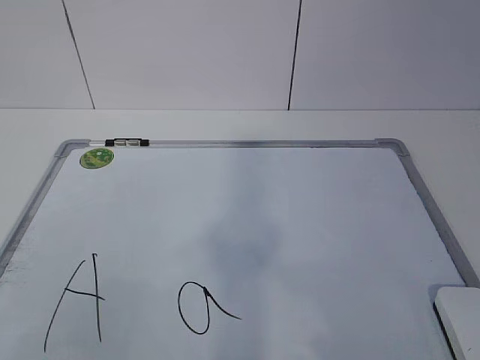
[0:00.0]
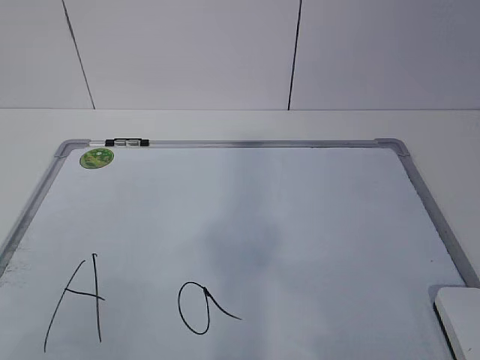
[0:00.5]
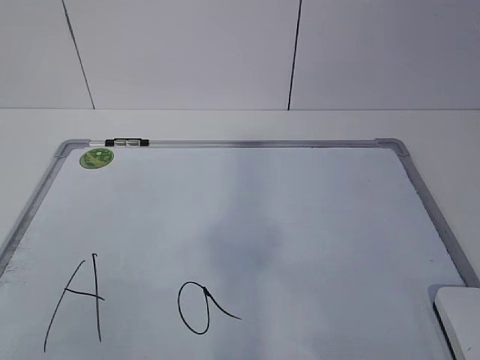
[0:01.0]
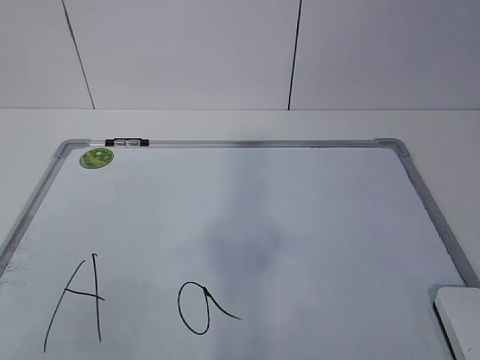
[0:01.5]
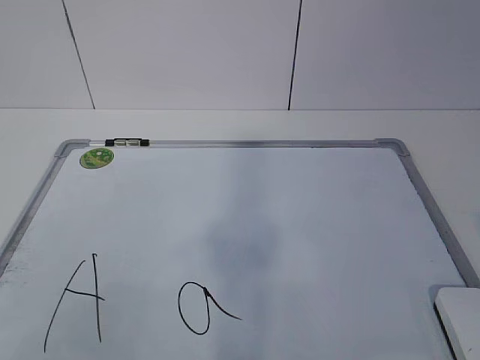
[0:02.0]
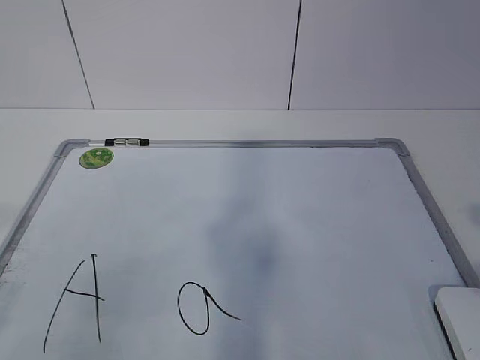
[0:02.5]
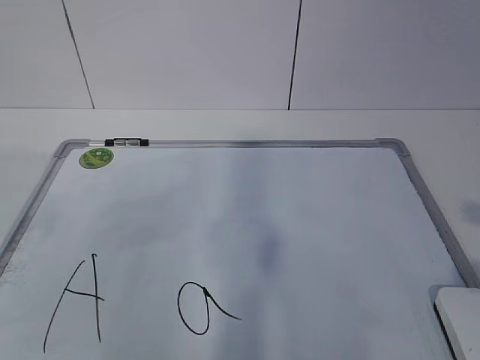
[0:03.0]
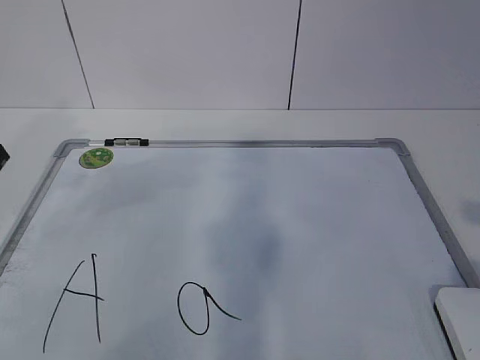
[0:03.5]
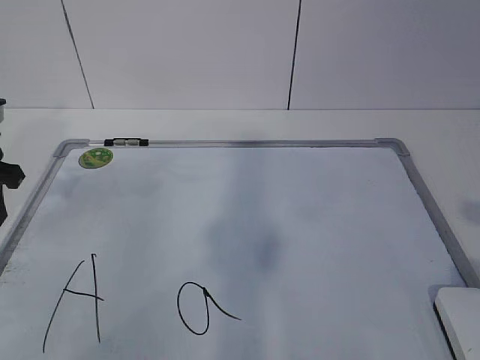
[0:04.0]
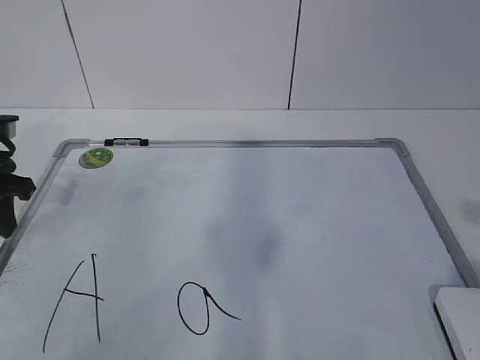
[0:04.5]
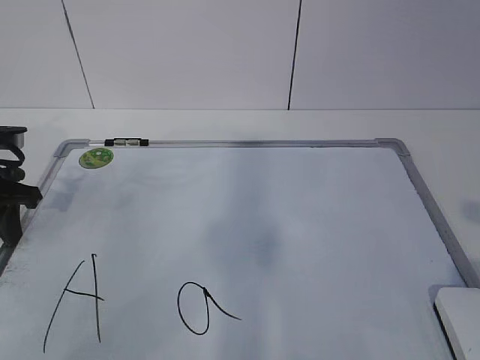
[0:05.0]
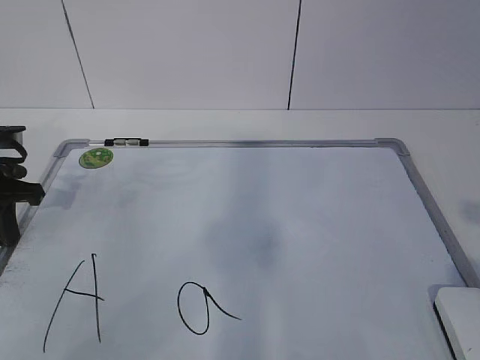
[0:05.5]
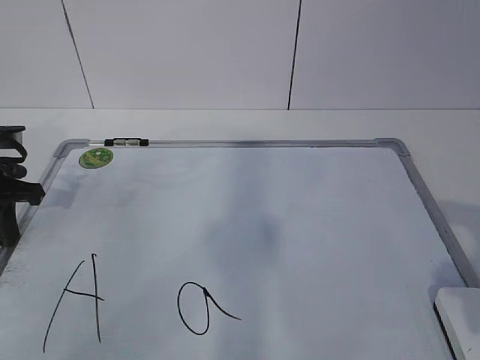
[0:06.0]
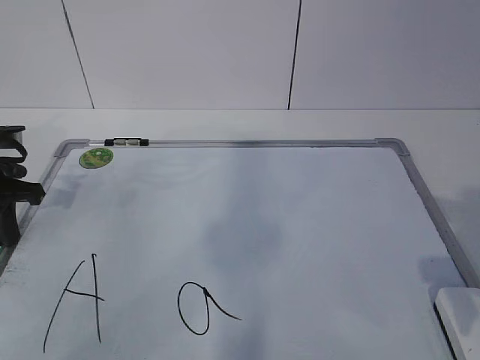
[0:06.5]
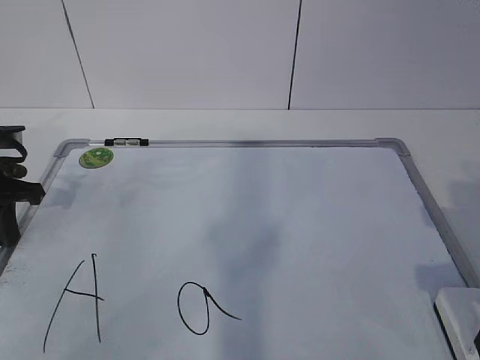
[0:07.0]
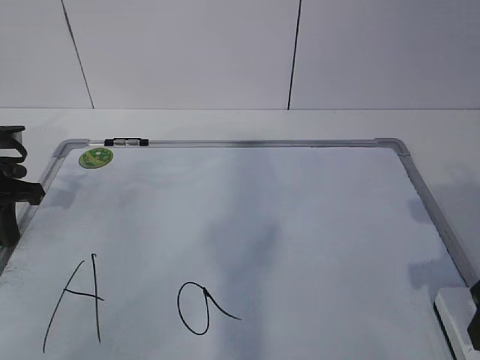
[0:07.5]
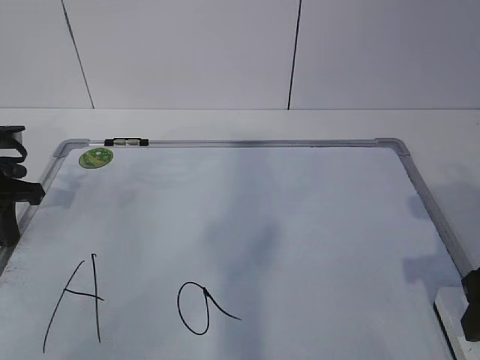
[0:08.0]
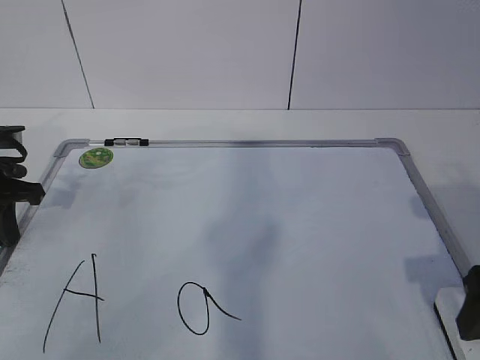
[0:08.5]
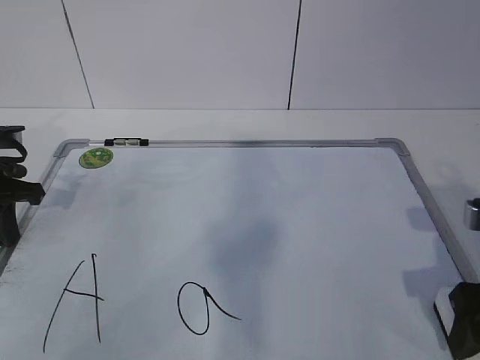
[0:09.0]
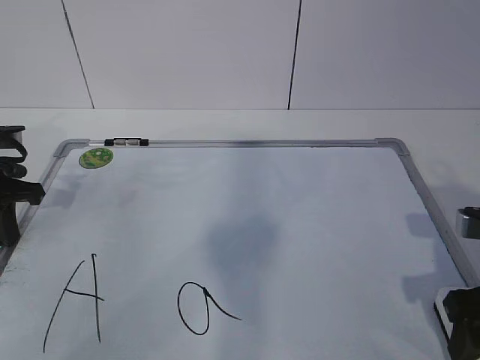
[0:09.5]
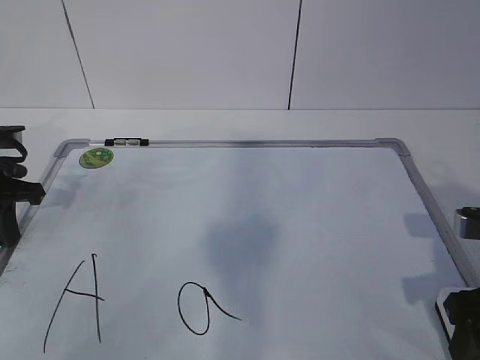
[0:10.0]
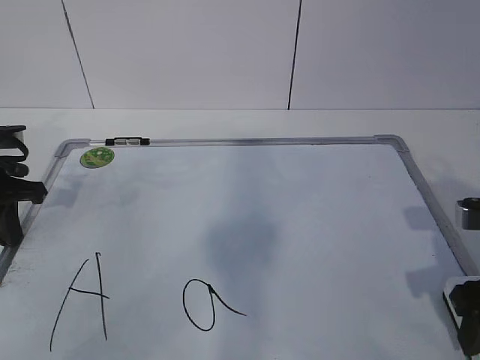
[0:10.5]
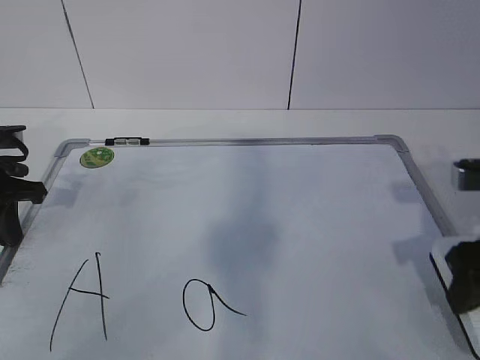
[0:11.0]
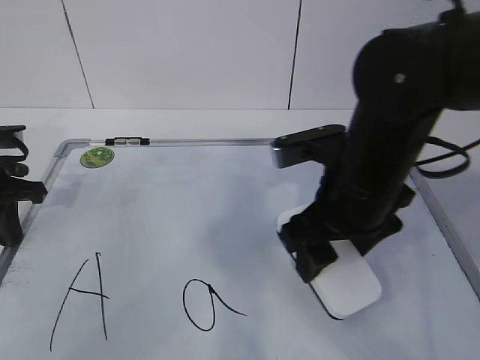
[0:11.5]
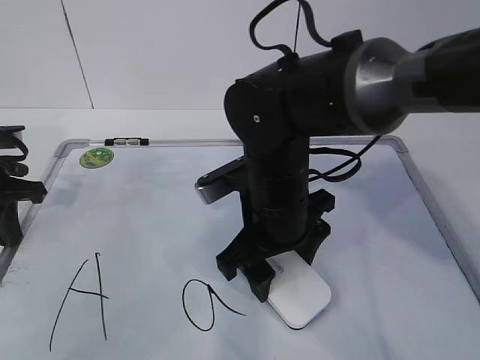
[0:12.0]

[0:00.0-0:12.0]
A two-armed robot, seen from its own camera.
Task of the whole recording: pick up the eraser on the blackboard and erase the letter "a".
Step, 4.5 to 8.5 s: Grab the eraser with your right hand.
2.0 to 4.0 s: The left gripper moves forward, some 30 cm.
4.0 to 6.0 s: The left gripper closes up.
6.0 to 8.0 s: The right gripper shifts about 10 cm forward and downward, and closes its fingers.
8.0 to 10.0 s: The right gripper opens, then closes once more.
10.0 to 12.0 s: The right gripper shifts approximately 25 cm to the left and forward.

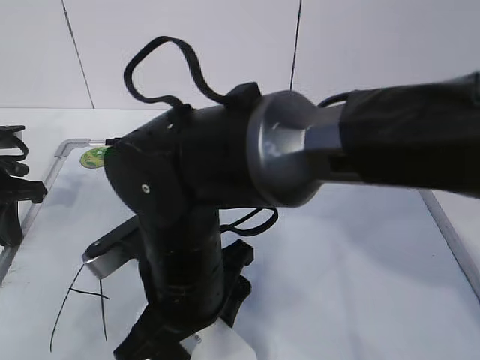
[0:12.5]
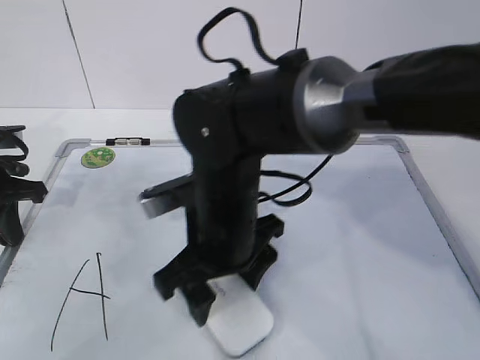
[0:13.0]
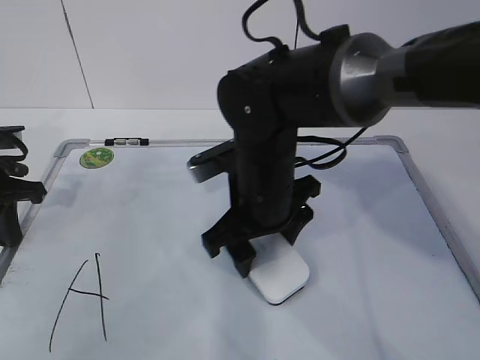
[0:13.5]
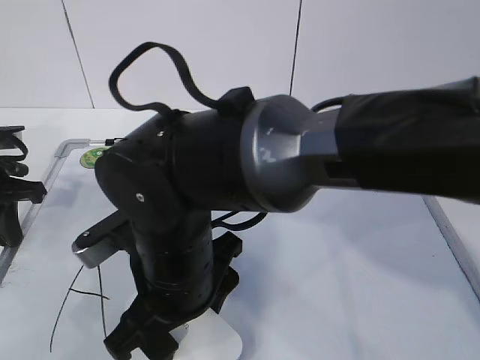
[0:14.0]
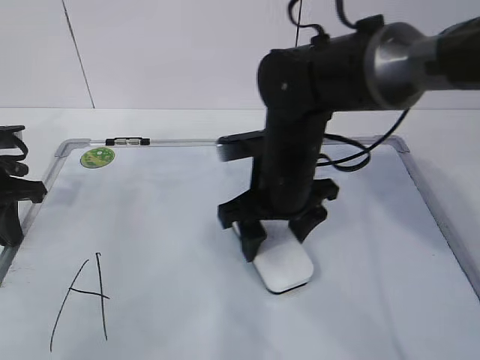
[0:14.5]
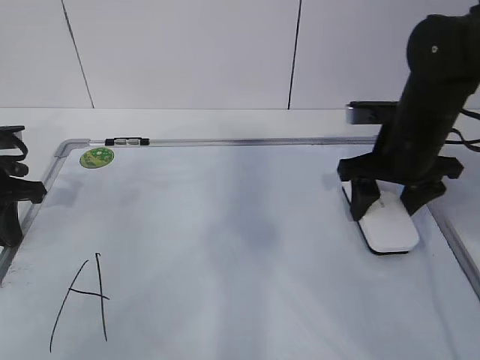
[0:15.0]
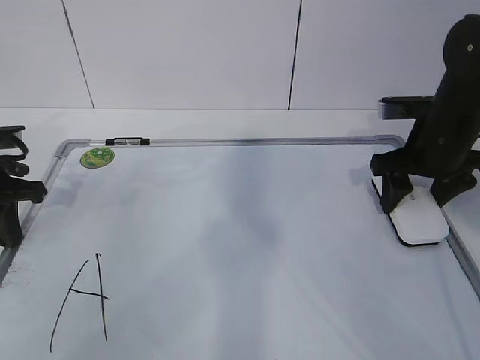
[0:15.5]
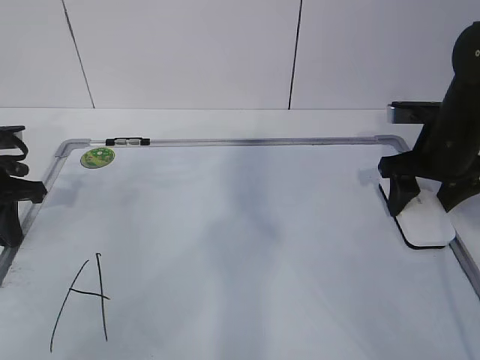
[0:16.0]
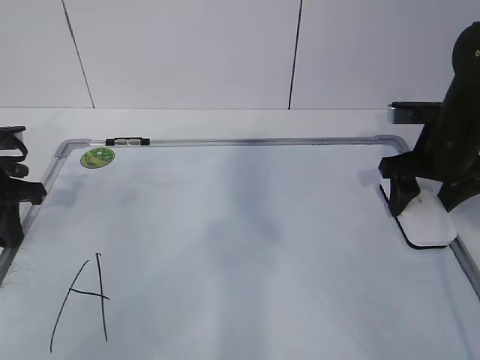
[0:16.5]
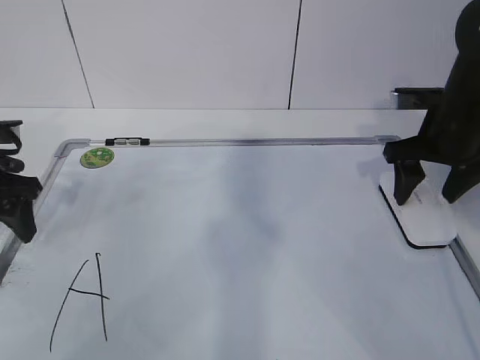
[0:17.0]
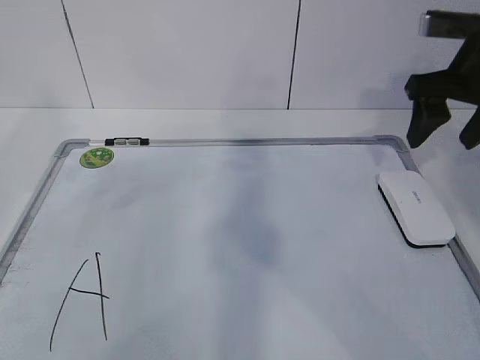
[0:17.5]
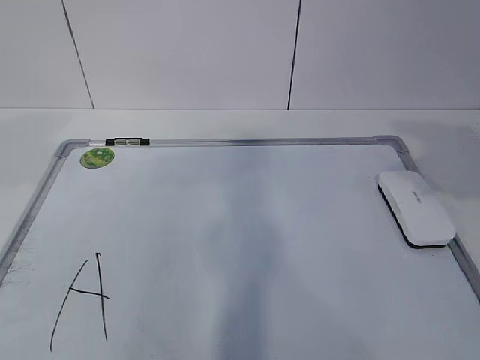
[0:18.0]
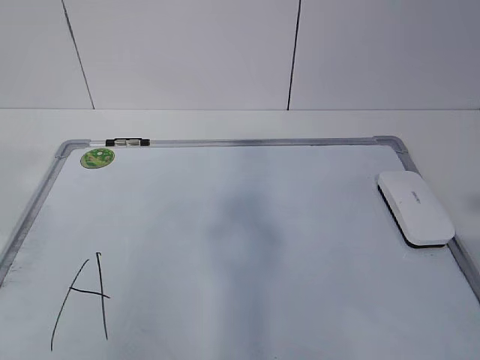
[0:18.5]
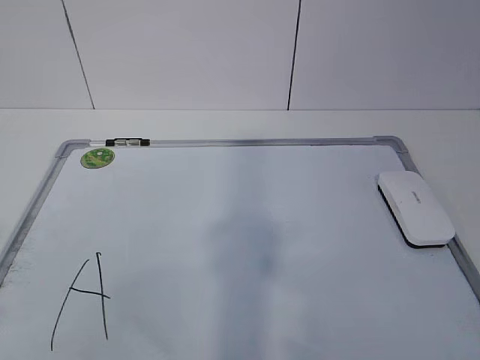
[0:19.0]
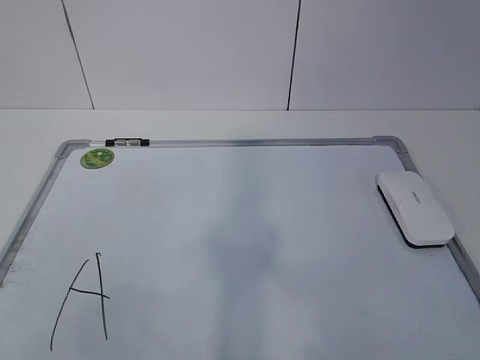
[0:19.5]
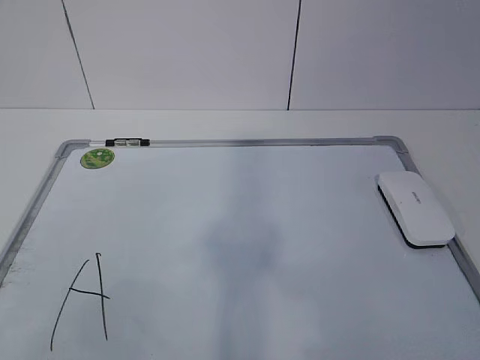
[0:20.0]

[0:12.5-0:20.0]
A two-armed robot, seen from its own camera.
Task of the whole recording: pick up the eraser on the blackboard and erase the letter "a".
12.5 to 14.5 s: The right gripper swings forward and backward, approximately 10 cm each way, with 2 reversals.
14.5 to 16.5 s: The right gripper goes some 20 cm to the right.
16.5 to 18.0 s: The right gripper is displaced backward and upward by roughly 25 cm. The left gripper is displaced upward and backward by approximately 25 cm, and opens up.

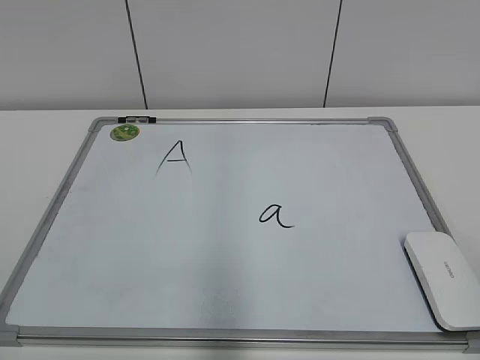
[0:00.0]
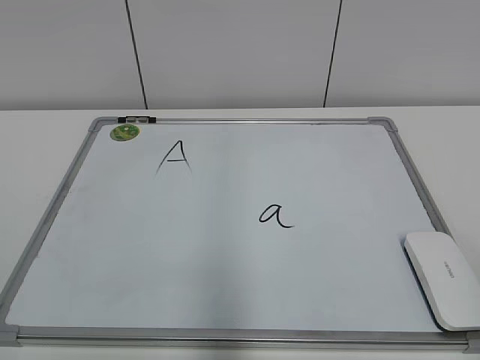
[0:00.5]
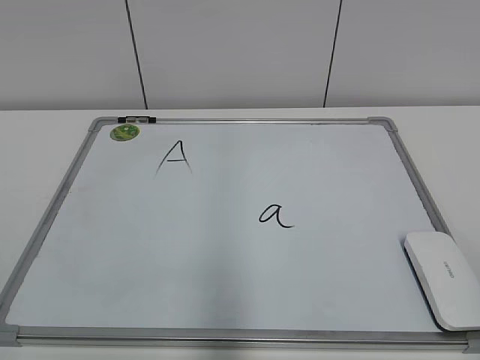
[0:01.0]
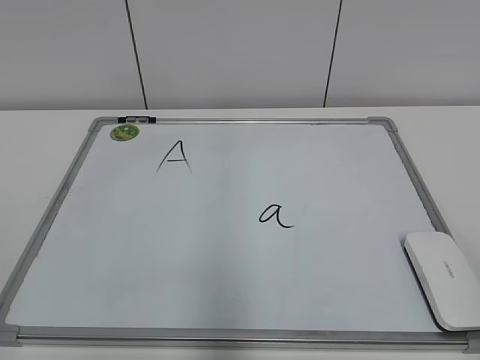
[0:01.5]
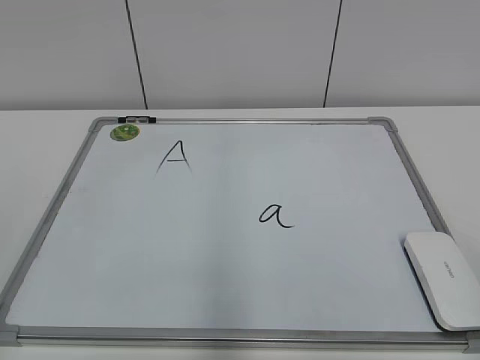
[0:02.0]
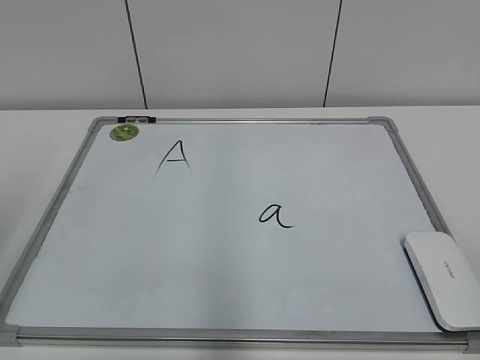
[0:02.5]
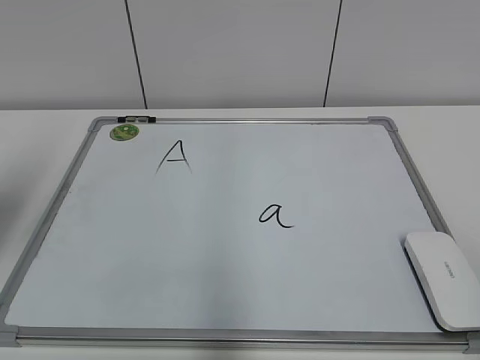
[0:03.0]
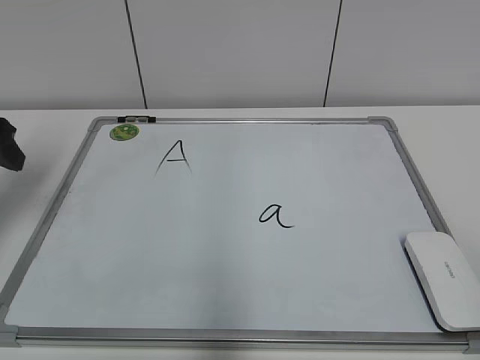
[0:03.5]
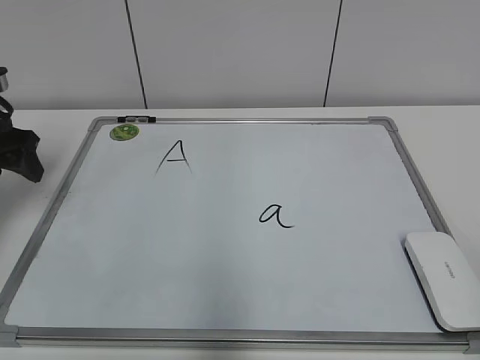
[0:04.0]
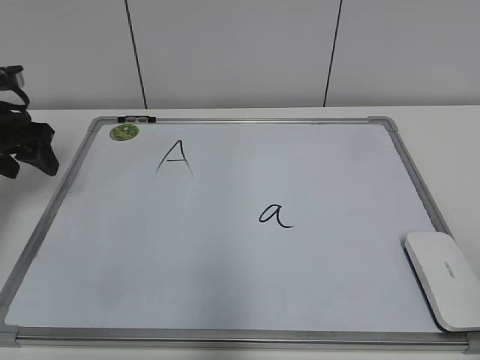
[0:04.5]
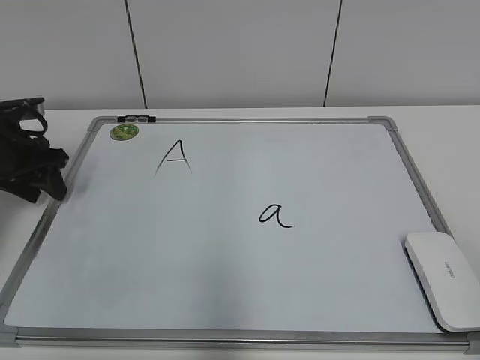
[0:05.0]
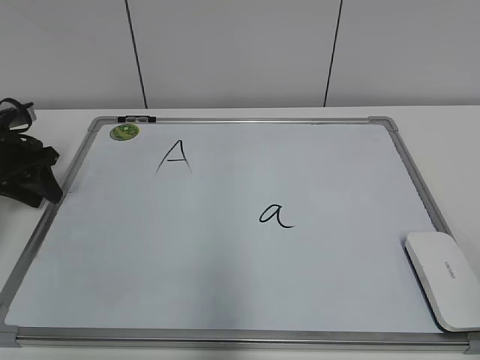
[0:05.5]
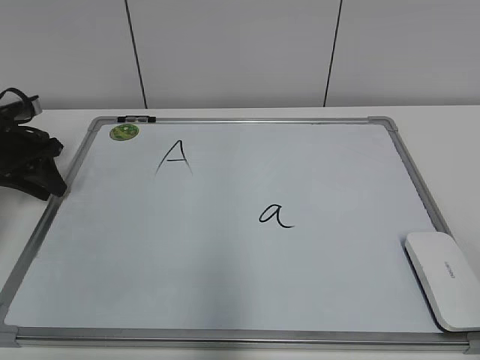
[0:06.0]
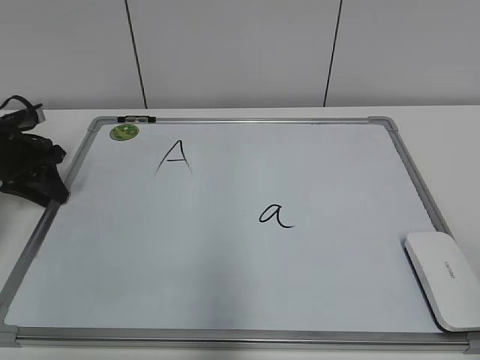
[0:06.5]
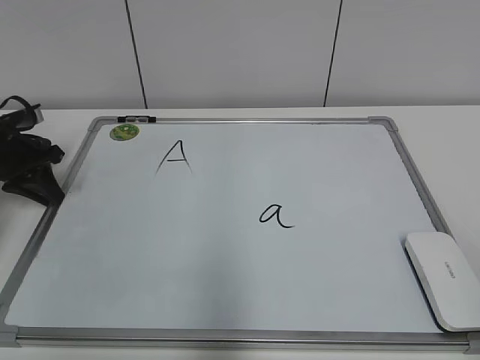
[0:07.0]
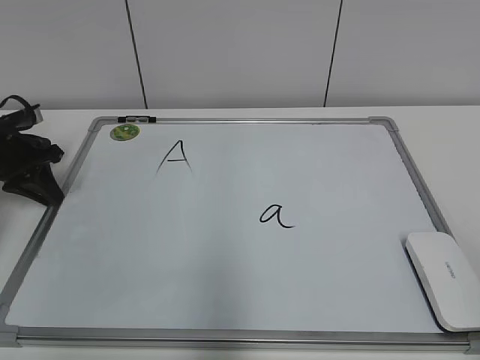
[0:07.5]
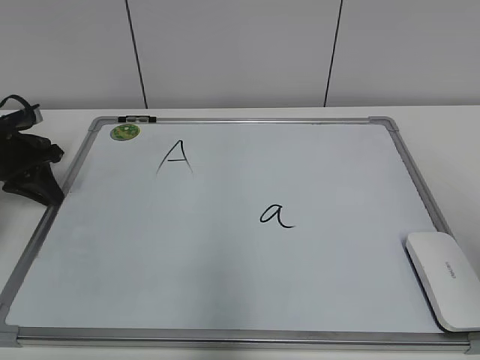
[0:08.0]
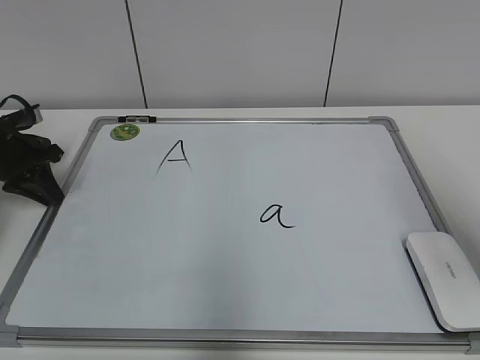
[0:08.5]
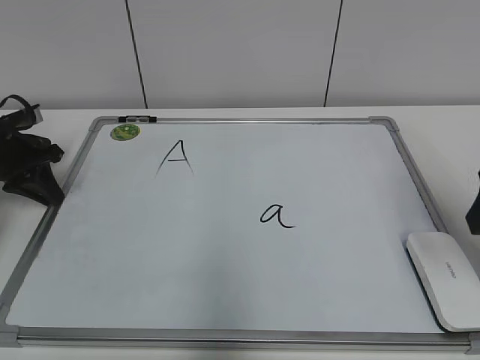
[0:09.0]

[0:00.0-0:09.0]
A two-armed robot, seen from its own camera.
Task of the whole recording: pick up the eraser on the blackboard and erase the letter "a".
Step, 0.0 to 6.5 s: Hold the drawing board steady with your left hand.
2.0 to 4.5 s: The left gripper travels forward by some 40 cm.
4.5 to 7.0 s: The left gripper heads downward, covering approximately 5 cm, and closes its fingers.
7.0 to 9.0 s: The right gripper is displaced forward by some 25 cm.
